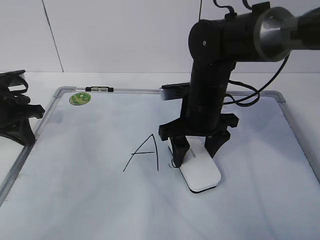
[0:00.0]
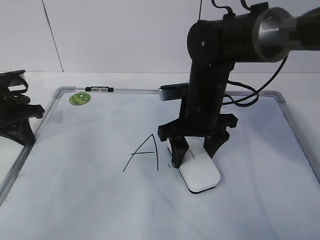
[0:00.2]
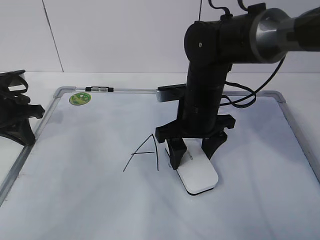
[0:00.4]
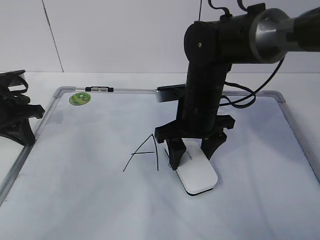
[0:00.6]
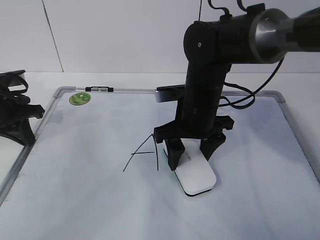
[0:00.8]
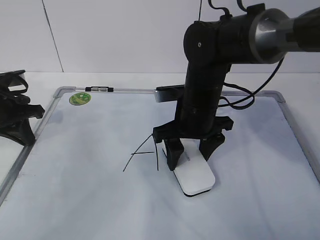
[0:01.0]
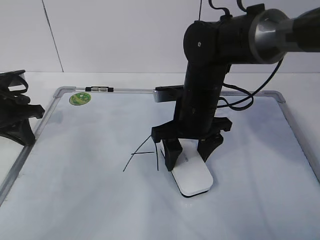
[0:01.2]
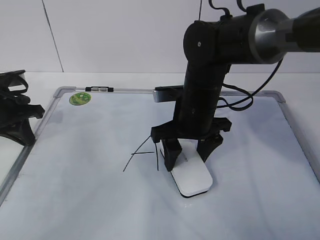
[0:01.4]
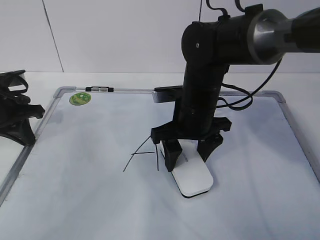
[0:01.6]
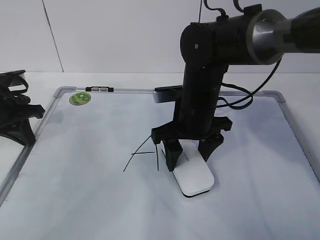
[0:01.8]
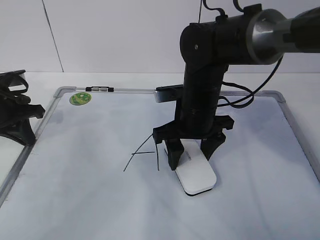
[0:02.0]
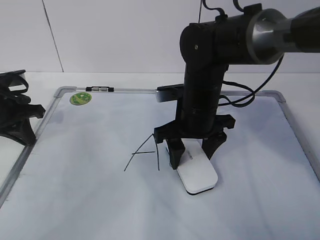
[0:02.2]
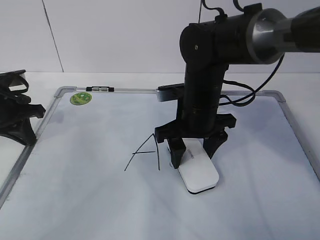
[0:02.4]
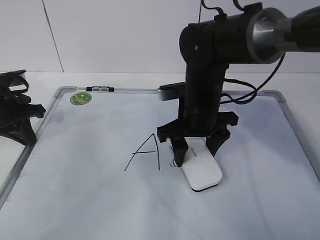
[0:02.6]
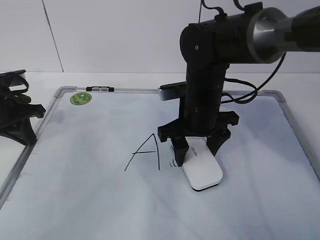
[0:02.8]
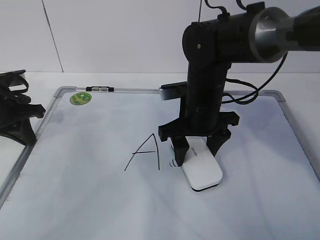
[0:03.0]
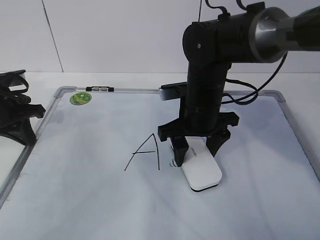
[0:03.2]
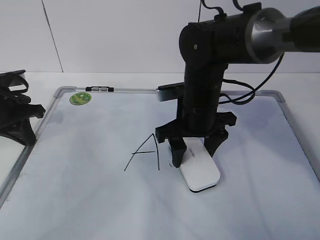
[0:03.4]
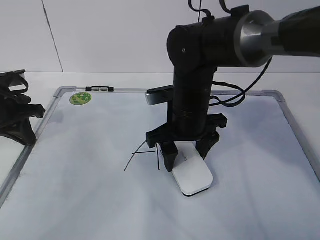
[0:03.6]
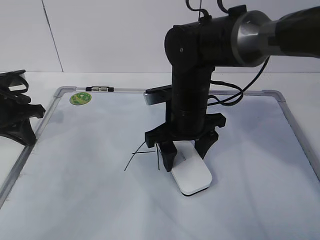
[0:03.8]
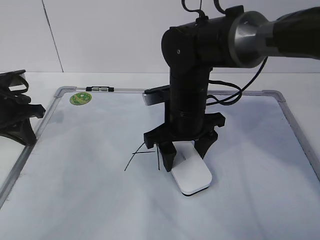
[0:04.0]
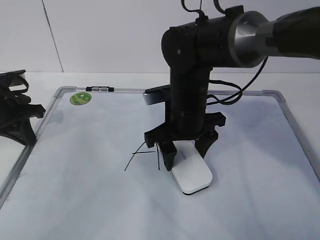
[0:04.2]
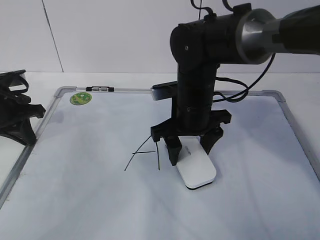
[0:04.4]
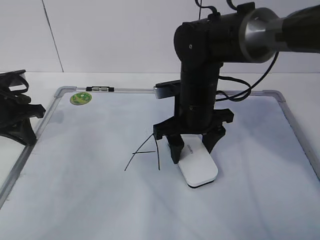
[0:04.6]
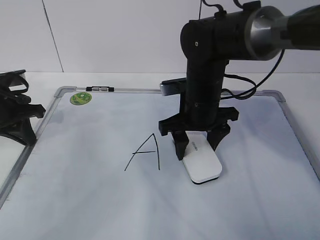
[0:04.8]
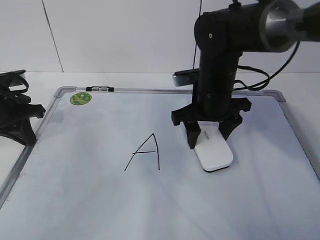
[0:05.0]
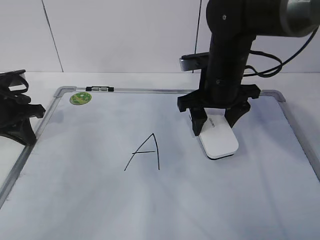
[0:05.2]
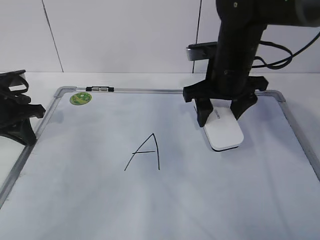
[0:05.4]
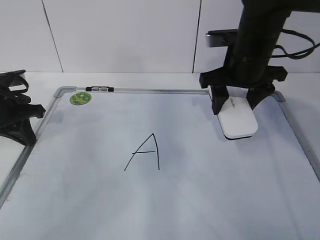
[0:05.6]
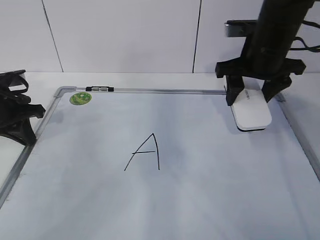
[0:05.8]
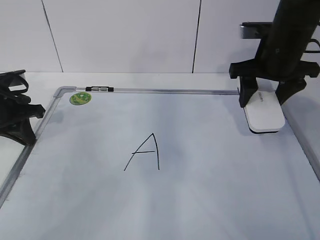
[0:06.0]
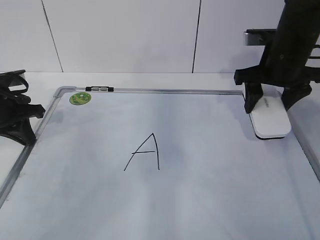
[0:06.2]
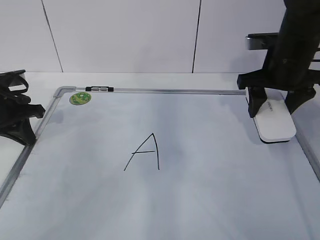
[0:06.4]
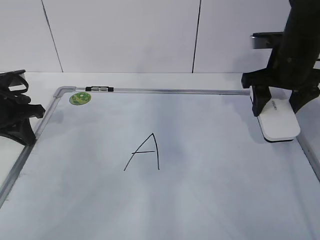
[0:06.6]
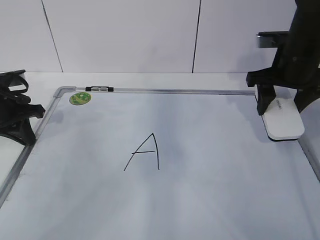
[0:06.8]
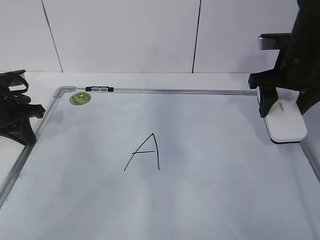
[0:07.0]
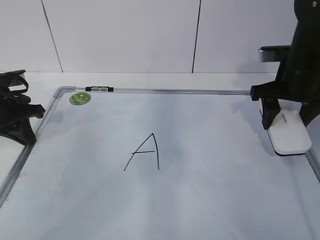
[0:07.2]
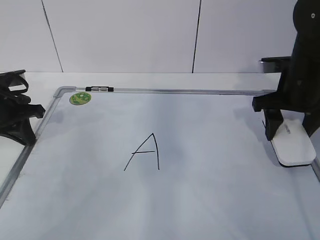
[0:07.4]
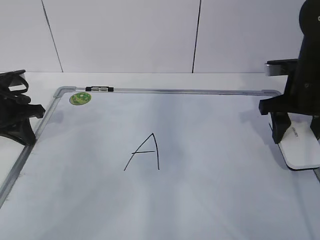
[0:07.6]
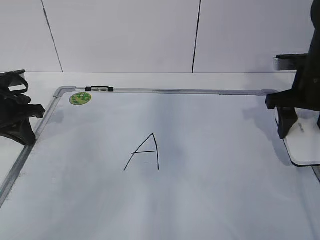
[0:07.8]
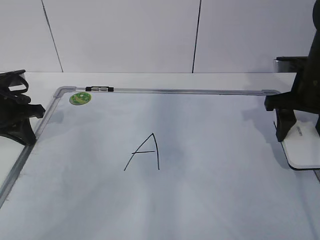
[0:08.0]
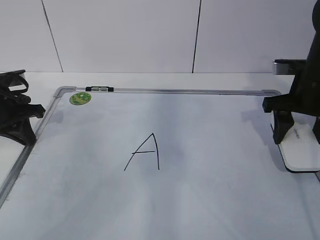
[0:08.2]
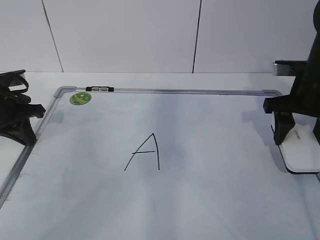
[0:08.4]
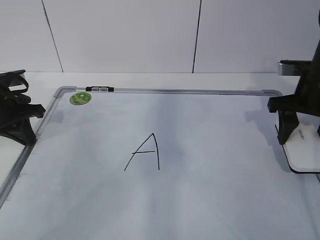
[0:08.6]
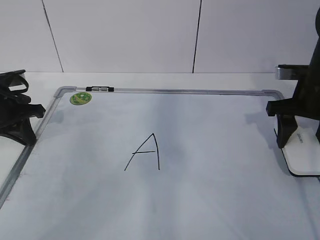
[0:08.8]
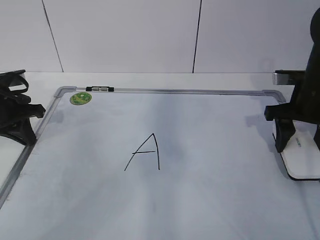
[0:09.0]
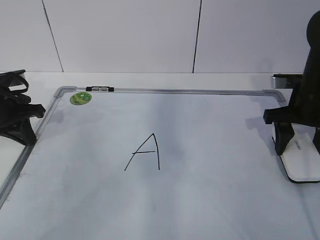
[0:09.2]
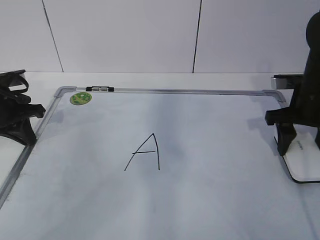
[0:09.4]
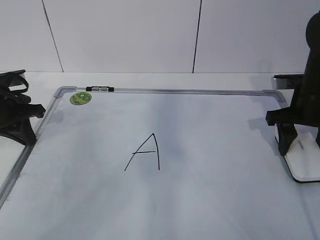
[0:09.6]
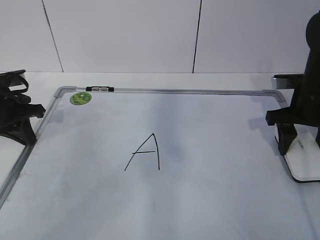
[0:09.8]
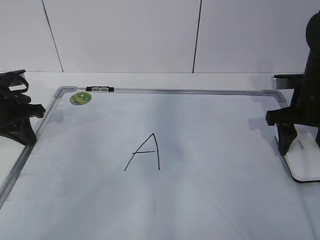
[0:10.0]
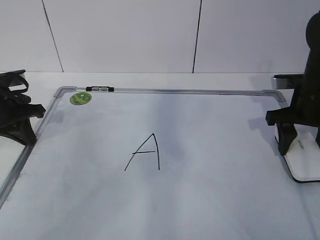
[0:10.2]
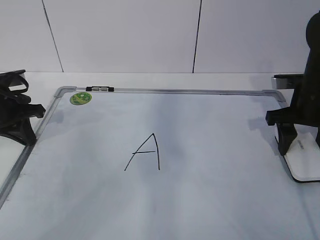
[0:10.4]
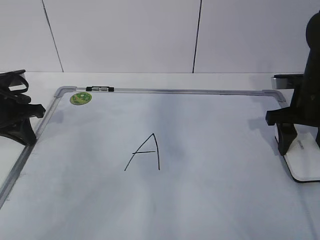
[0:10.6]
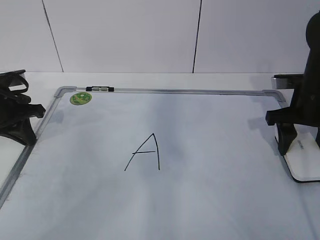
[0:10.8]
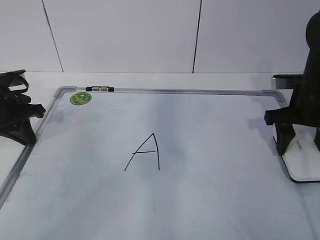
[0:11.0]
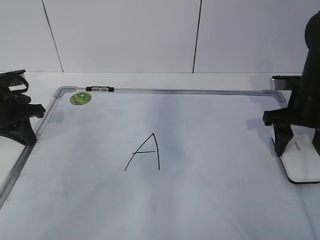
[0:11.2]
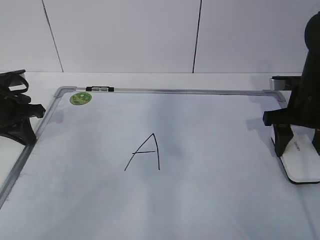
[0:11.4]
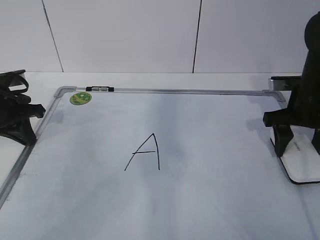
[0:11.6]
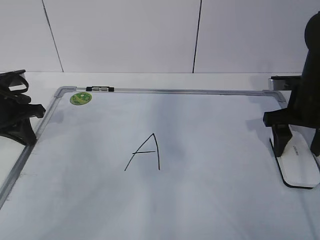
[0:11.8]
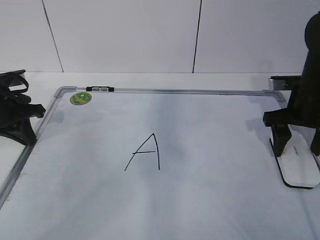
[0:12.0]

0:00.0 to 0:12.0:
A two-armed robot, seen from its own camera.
Task of the whole recording: pick up the eraser on the blackboard and erase the letter "a".
Step, 0:00.0 to 0:05.6: Put down the eraser with your right hand.
0:00.0 to 0:01.6: Neither gripper changes place.
0:01.6 to 0:04.4: There are only small adjustments of the grippers.
0:04.4 to 0:06.0: The right gripper heads to the right and upward, covering approximately 15 cm.
0:06.0 to 0:07.6: The right gripper changes place by approximately 5 cm.
0:07.6 to 0:09.0: The grippers make only small movements.
0:09.0 to 0:10.4: Both grippers stay put.
0:10.4 to 0:12.0: The right gripper opens.

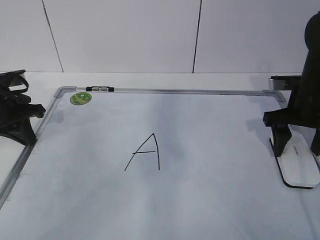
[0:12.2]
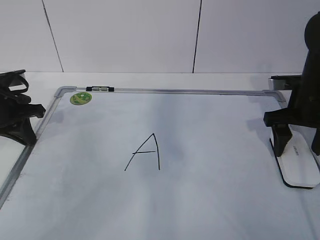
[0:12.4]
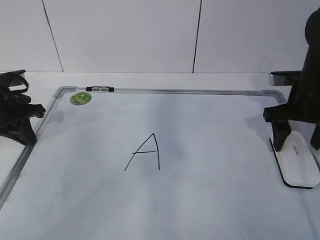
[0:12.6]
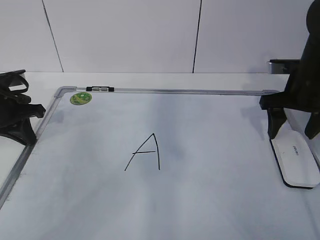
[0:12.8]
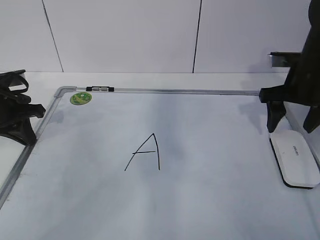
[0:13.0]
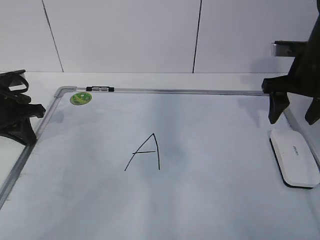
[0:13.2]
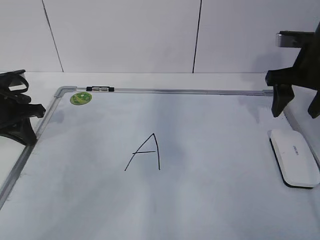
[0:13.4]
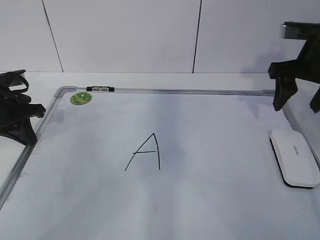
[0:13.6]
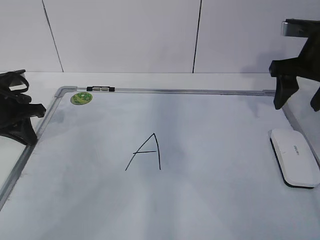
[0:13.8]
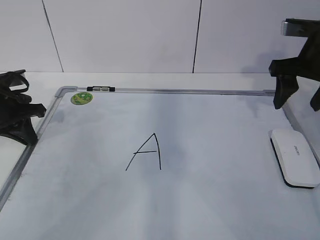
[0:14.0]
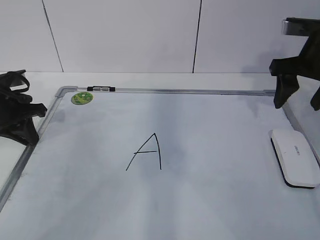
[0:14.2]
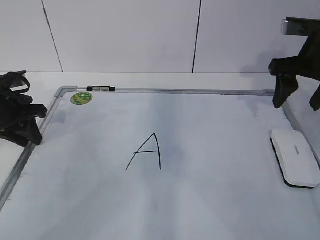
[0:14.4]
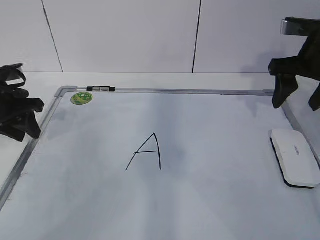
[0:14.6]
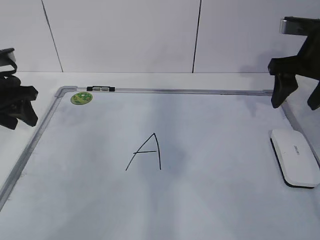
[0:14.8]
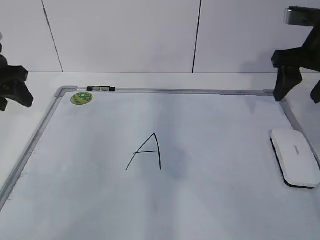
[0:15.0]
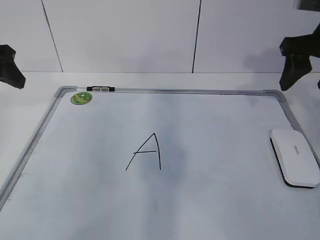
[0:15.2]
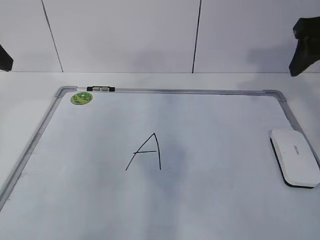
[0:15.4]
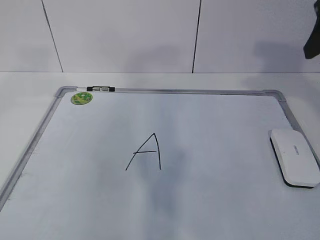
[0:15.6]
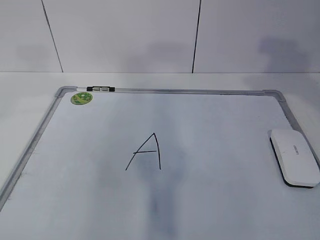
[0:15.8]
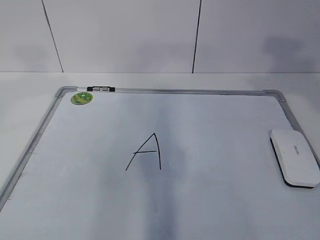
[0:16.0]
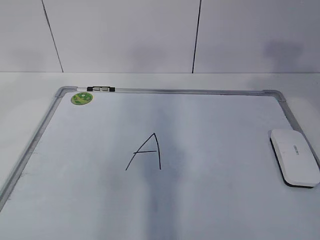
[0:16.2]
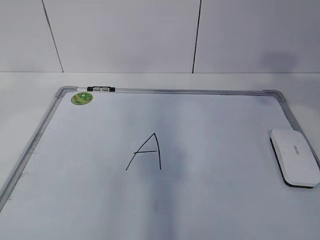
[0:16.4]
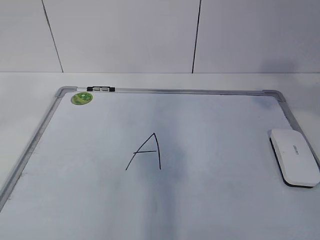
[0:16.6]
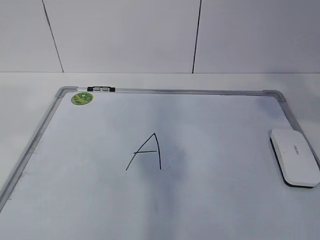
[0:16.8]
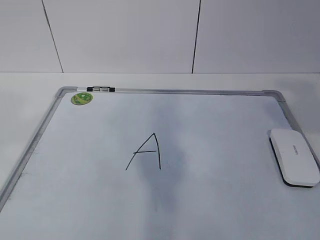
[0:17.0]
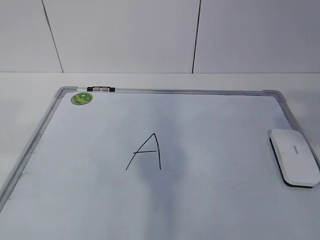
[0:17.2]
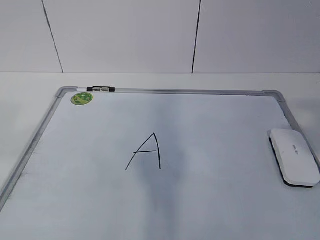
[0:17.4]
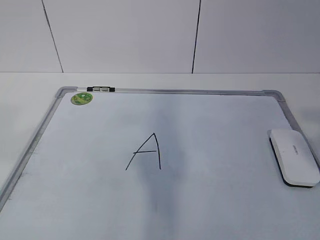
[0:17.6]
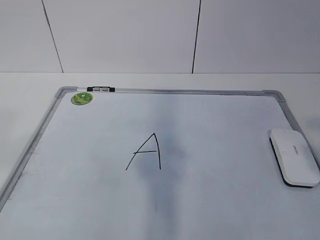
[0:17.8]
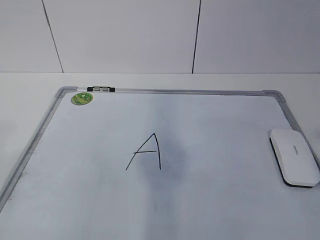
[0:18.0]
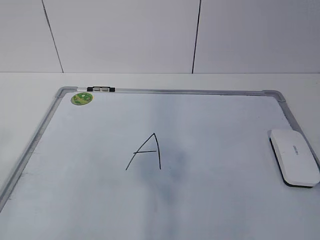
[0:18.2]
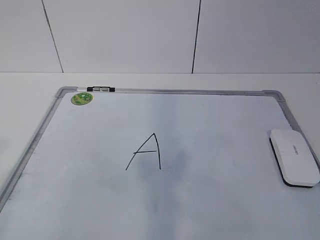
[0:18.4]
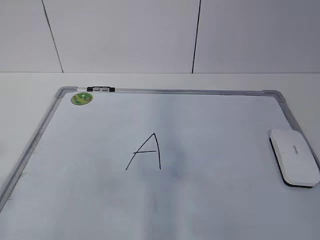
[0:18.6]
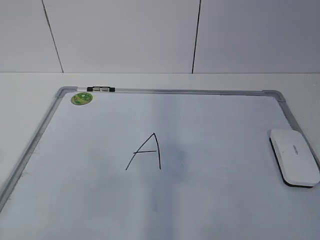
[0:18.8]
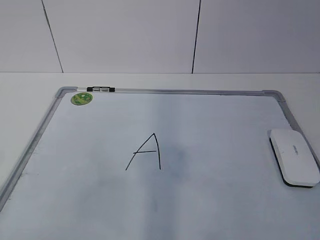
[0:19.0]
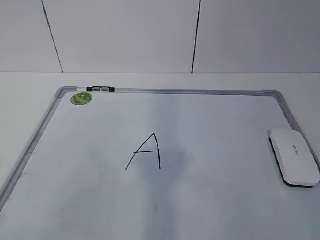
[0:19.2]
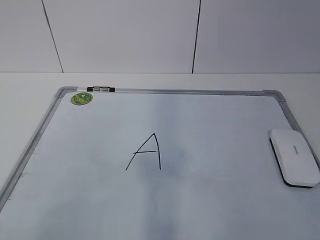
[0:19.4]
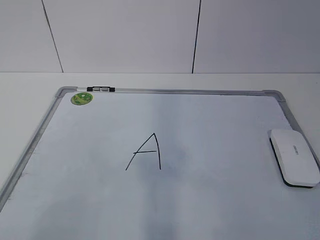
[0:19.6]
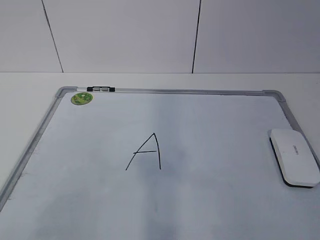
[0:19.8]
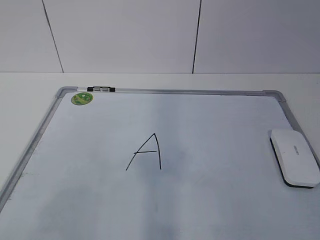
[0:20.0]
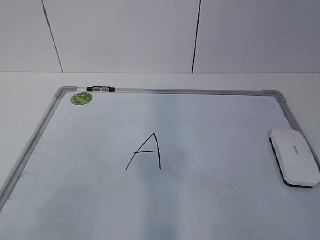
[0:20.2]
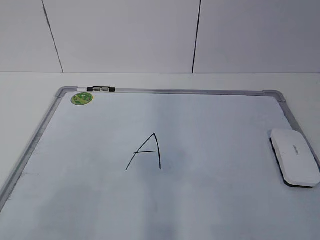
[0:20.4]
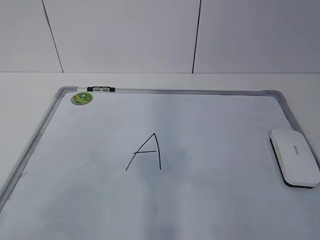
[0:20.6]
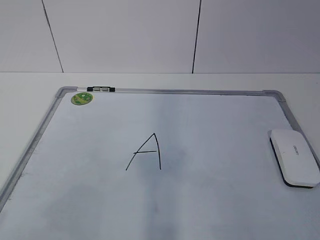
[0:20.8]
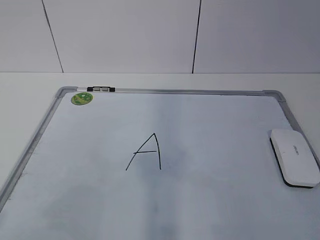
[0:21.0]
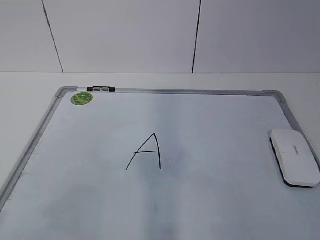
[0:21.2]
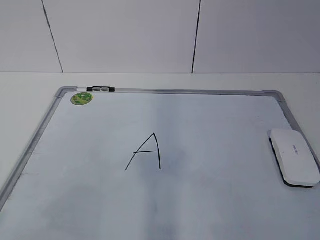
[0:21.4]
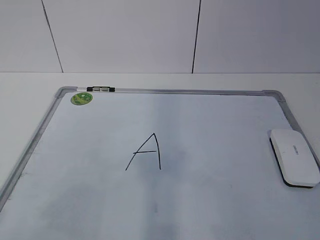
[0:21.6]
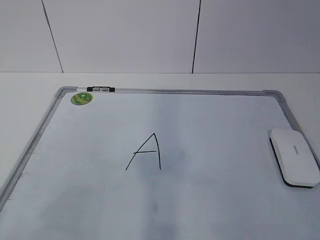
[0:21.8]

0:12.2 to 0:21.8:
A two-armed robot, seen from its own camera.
Task of the whole recording: pick up the eraser on the blackboard and erase the letter "a".
0:12.2 to 0:13.8: The right gripper moves upward, roughly 10 cm.
0:13.8 to 0:15.4: The left gripper travels upward by about 15 cm, and opens, while the right gripper moves upward, some 10 cm.
0:15.4 to 0:17.0: The right gripper heads backward, covering about 25 cm.
0:20.2 to 0:21.8: The two grippers keep their place.

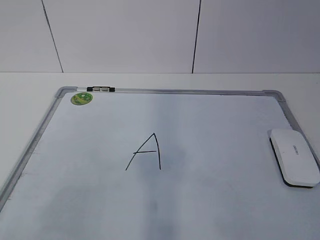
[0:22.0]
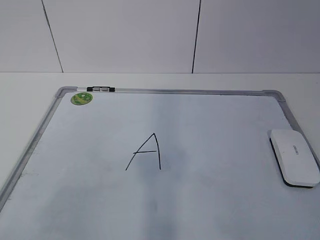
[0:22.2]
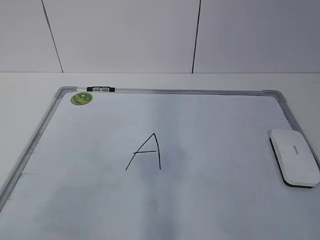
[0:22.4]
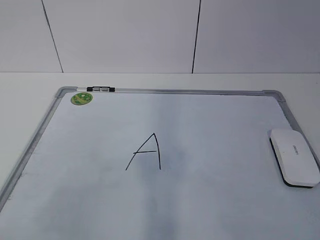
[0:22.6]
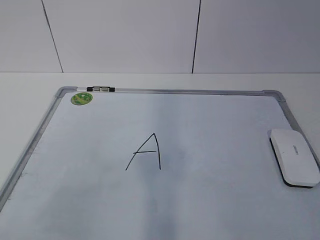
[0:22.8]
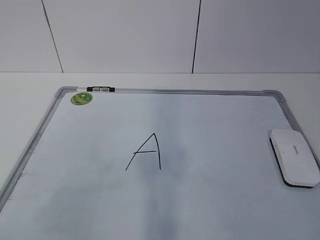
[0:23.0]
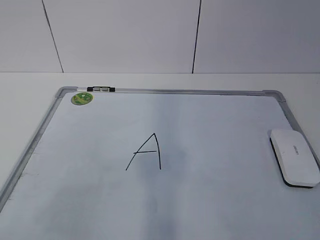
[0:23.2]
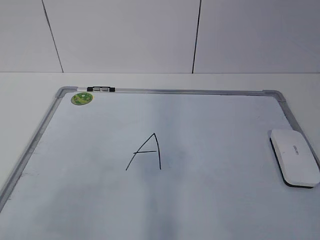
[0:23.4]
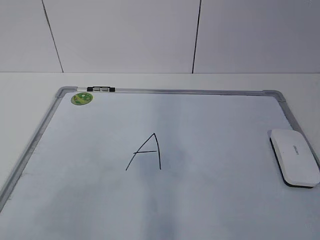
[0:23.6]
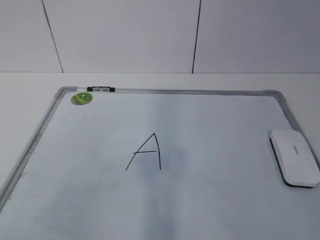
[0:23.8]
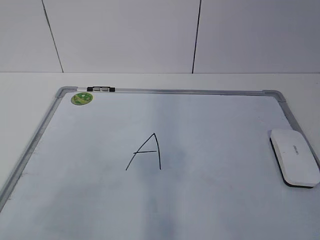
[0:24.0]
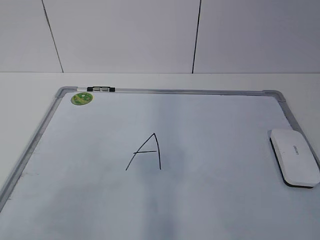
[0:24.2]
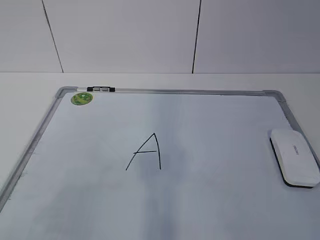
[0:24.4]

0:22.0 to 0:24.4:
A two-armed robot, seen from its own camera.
Task of the whole recording: pick up the eraser on the blackboard and erase the letter "a".
0:23.2 to 0:24.4: Neither gripper changes place.
